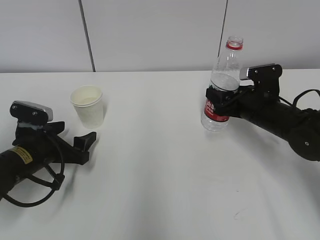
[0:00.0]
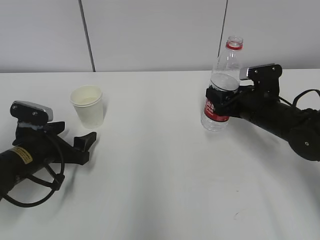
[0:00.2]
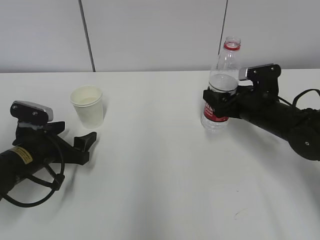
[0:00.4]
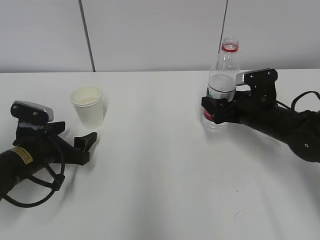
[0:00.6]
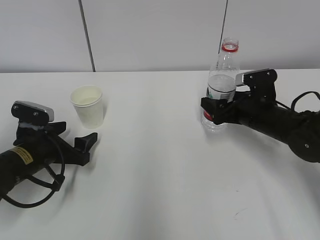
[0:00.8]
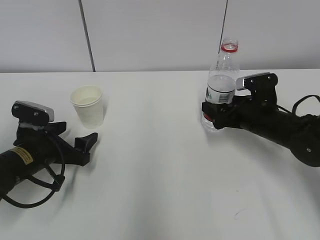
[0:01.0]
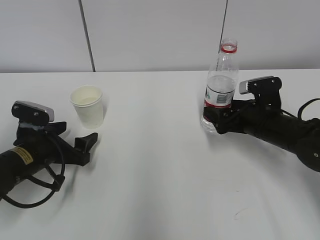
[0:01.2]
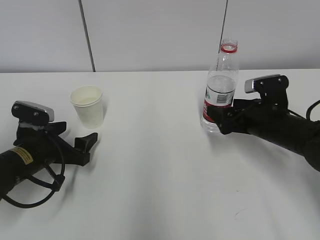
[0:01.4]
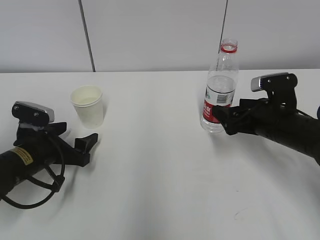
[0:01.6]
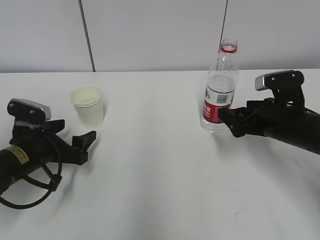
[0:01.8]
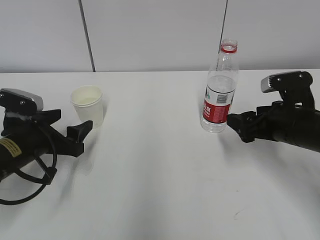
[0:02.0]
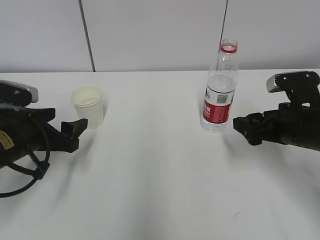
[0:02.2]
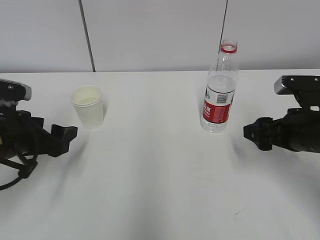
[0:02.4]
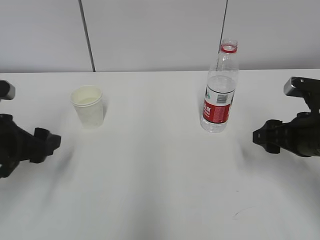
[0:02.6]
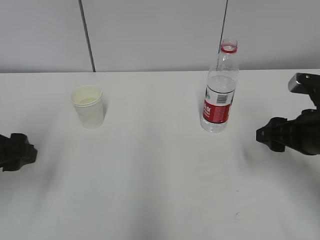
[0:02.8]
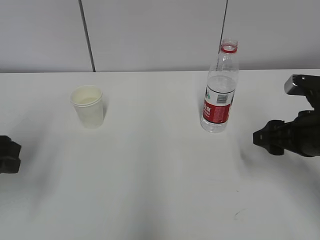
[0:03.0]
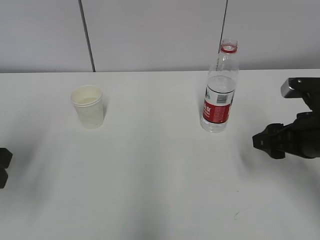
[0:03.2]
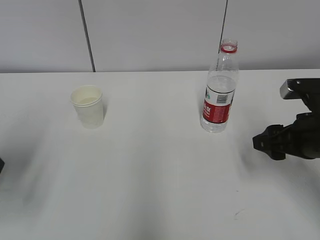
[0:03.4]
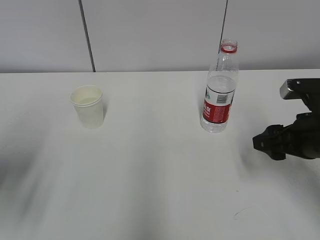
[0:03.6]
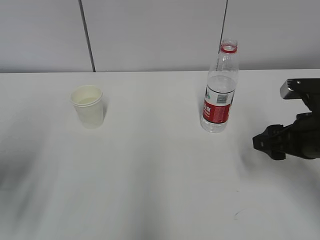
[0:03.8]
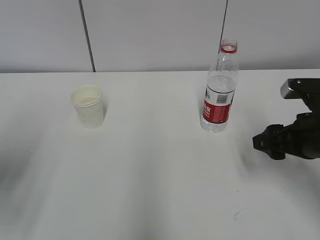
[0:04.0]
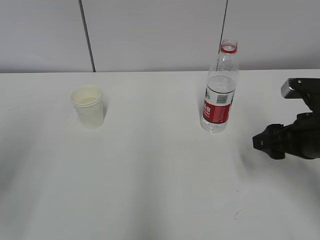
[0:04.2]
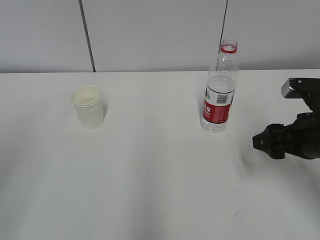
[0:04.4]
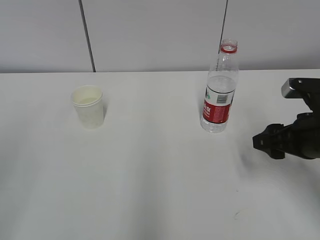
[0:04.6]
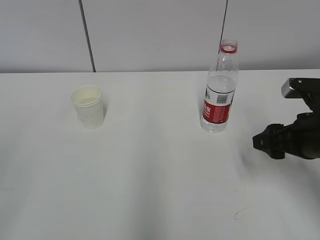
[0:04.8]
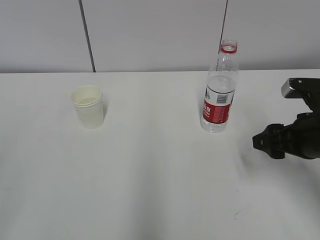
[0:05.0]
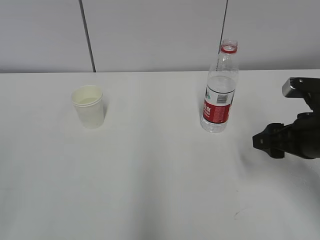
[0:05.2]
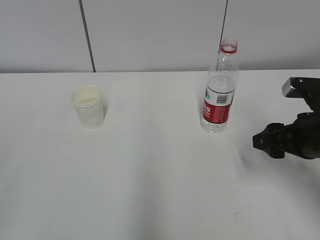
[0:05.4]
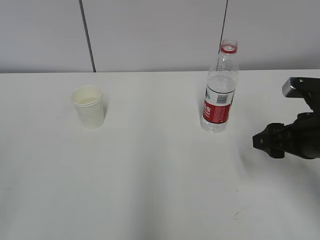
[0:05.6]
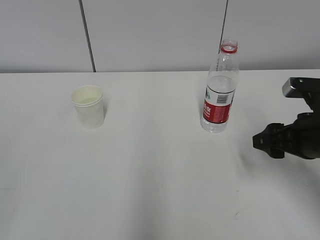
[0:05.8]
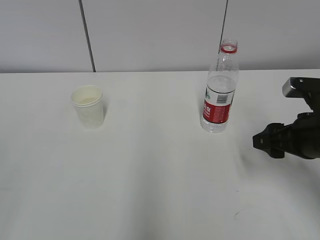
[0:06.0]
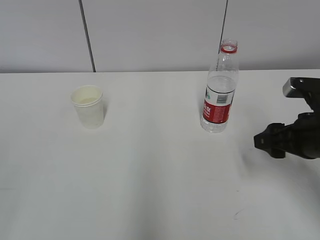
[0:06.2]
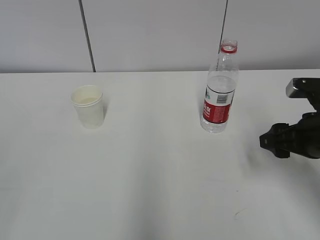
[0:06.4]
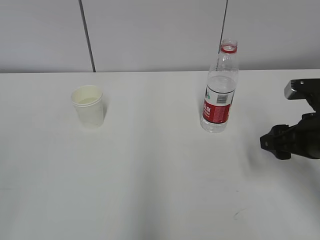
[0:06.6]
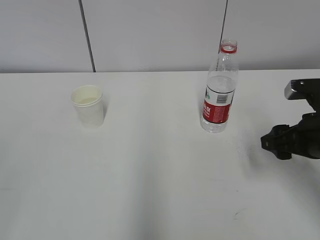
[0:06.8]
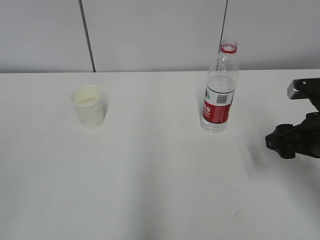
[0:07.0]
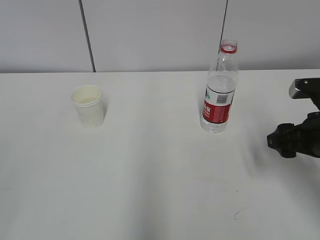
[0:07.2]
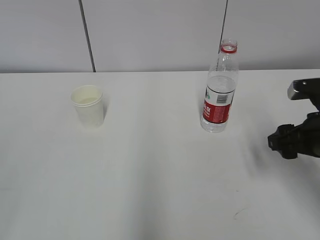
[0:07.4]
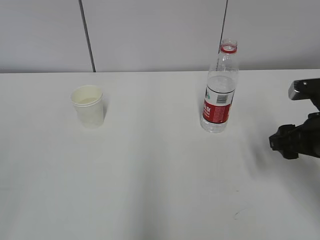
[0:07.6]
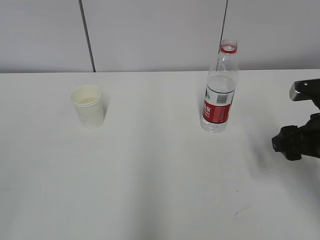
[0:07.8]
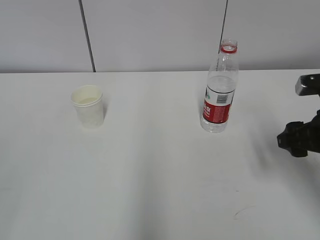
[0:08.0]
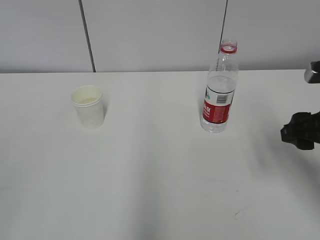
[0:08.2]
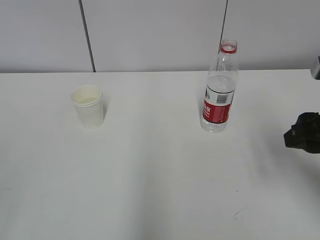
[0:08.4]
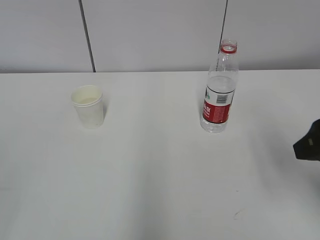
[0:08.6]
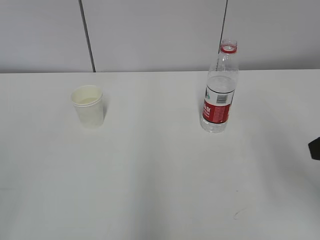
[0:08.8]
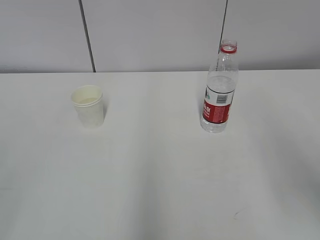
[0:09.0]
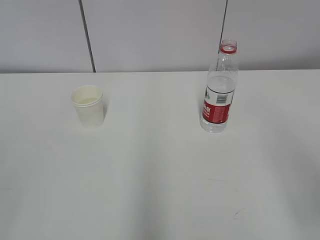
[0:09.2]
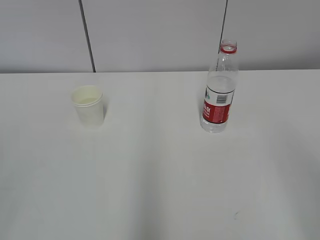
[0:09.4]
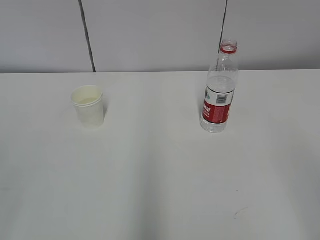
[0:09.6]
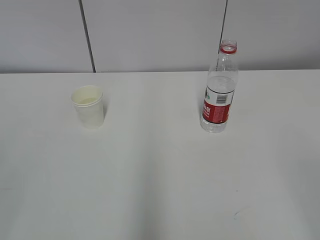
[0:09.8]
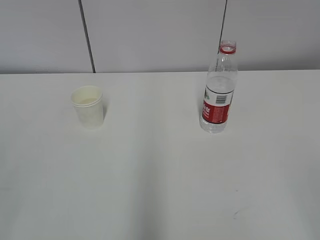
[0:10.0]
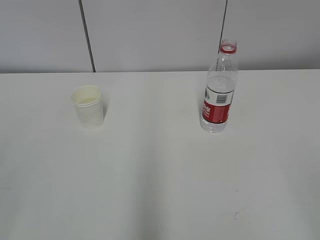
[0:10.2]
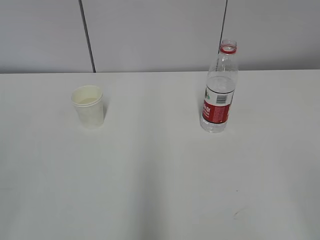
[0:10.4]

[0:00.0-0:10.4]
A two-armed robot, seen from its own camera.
0:00.0 to 0:01.4: The right gripper opens up.
0:01.4 to 0:03.0: The left gripper shifts some 15 cm upward and backward; the right gripper moves backward and upward, about 10 cm, and closes.
0:03.0 to 0:04.4: The left gripper is displaced backward and upward by about 15 cm.
0:06.0 to 0:07.4: There are only small adjustments of the grippers.
0:07.4 to 0:09.0: The right gripper goes some 20 cm upward and backward.

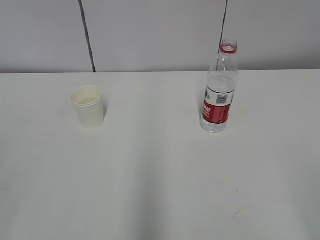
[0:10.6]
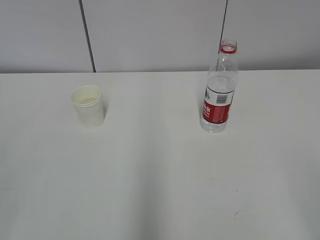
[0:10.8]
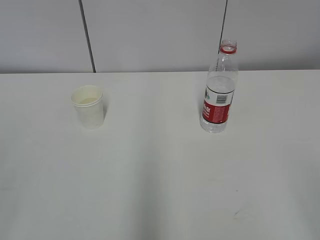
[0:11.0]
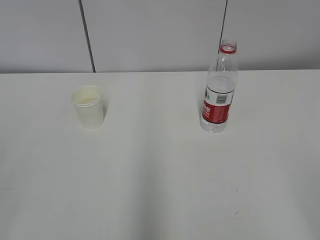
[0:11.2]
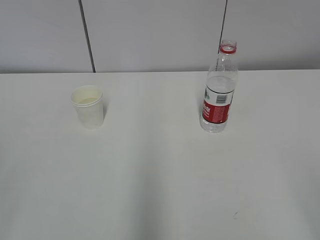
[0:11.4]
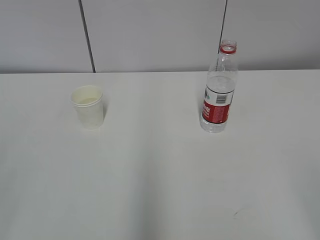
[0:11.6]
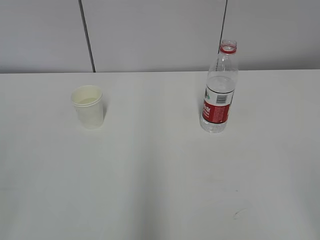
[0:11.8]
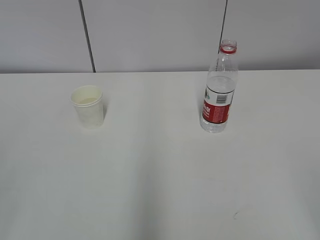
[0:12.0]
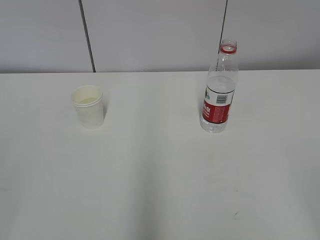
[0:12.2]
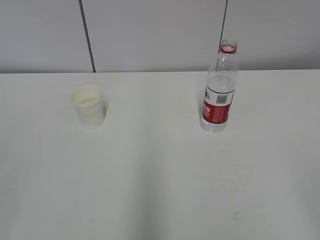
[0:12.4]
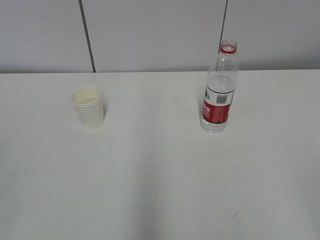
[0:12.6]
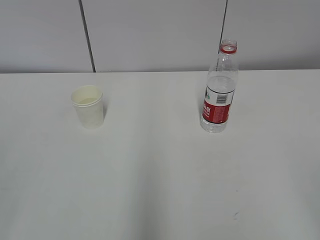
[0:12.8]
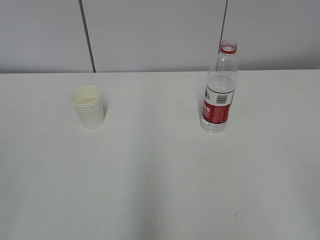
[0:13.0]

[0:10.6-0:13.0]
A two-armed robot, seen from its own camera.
0:11.8 to 0:13.0: The two grippers keep their place.

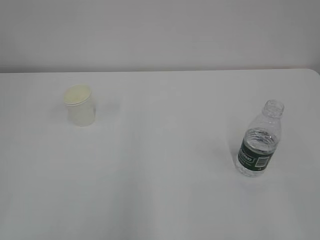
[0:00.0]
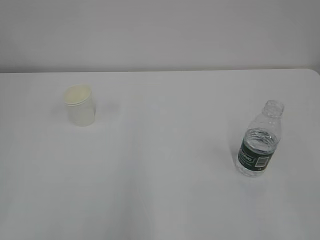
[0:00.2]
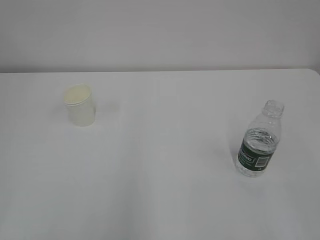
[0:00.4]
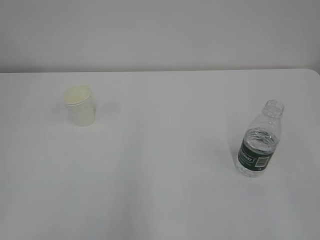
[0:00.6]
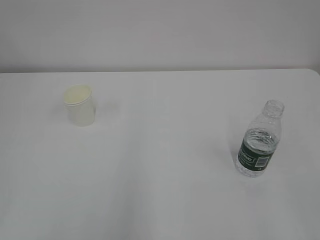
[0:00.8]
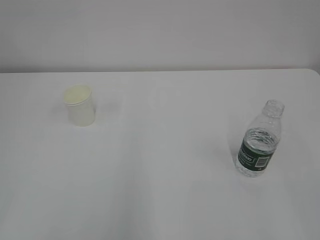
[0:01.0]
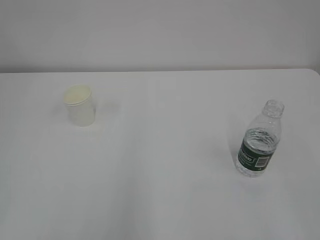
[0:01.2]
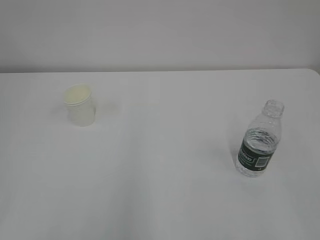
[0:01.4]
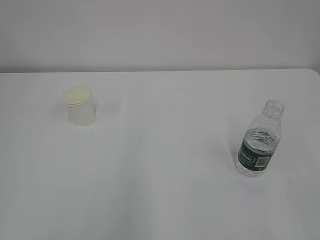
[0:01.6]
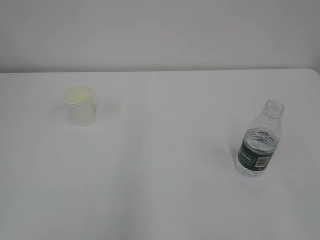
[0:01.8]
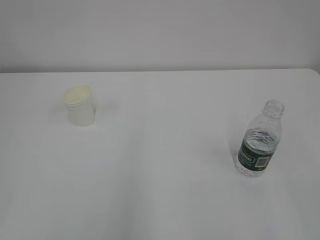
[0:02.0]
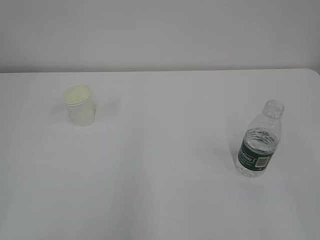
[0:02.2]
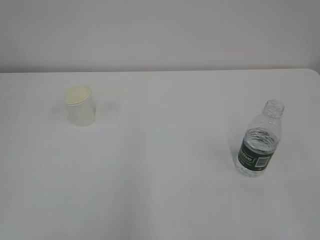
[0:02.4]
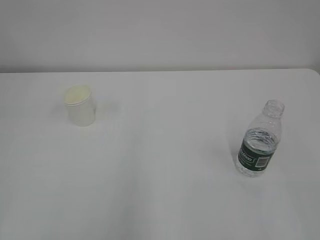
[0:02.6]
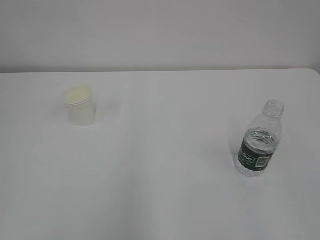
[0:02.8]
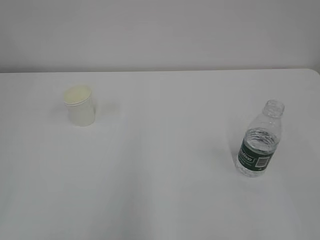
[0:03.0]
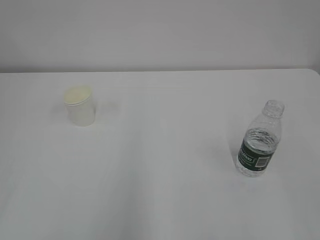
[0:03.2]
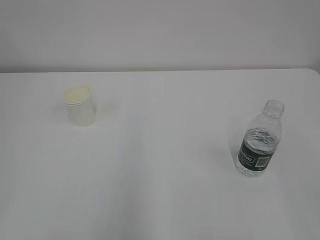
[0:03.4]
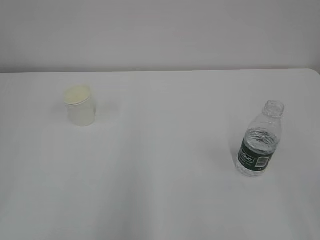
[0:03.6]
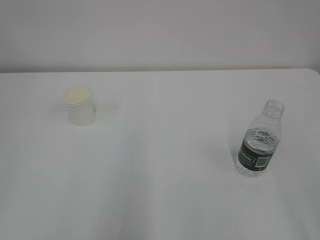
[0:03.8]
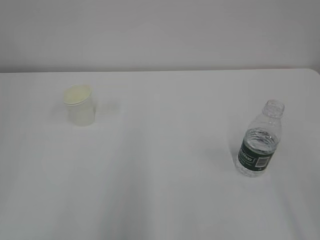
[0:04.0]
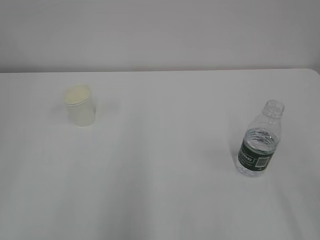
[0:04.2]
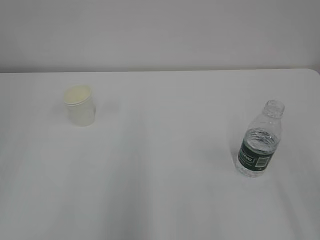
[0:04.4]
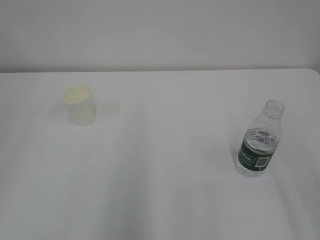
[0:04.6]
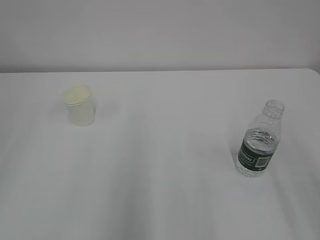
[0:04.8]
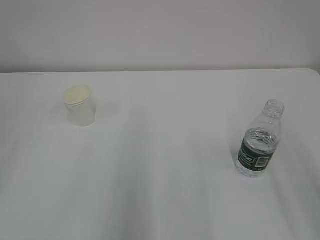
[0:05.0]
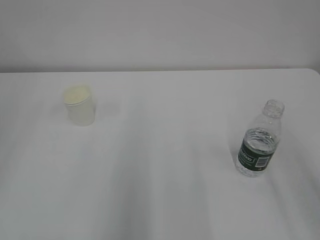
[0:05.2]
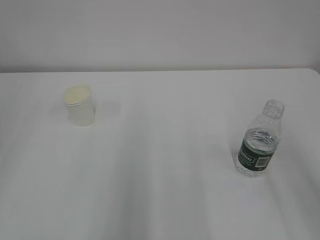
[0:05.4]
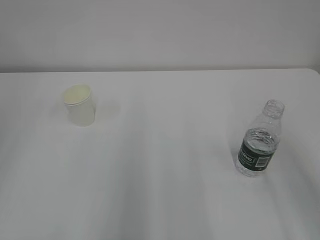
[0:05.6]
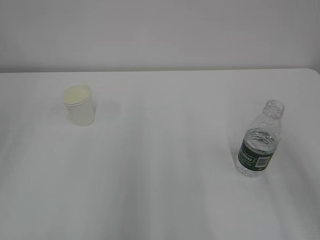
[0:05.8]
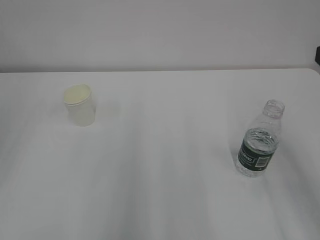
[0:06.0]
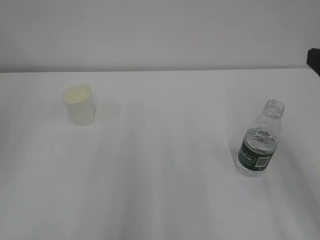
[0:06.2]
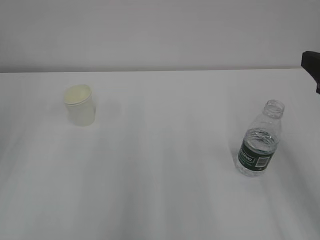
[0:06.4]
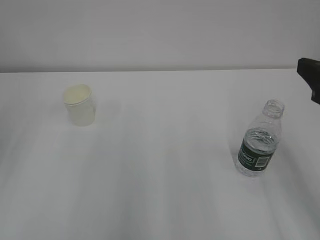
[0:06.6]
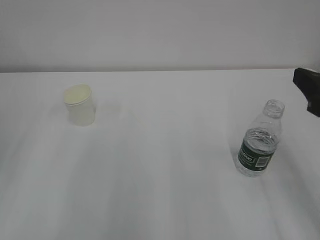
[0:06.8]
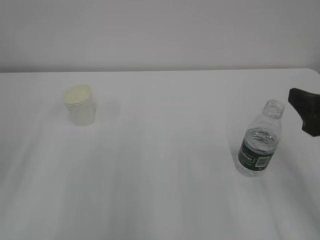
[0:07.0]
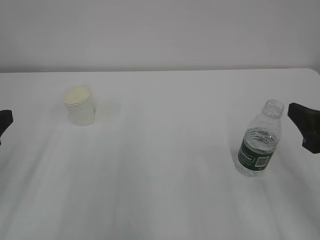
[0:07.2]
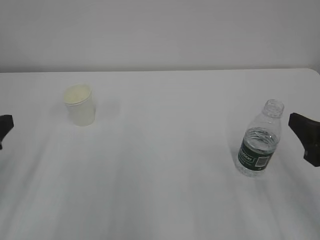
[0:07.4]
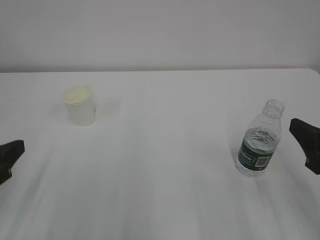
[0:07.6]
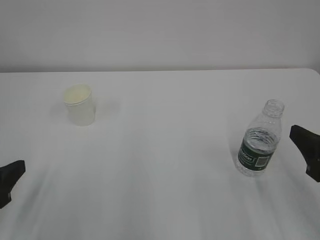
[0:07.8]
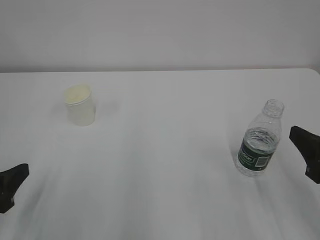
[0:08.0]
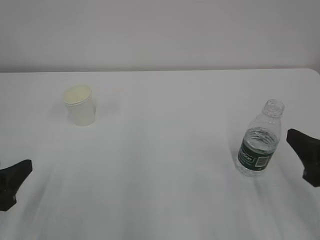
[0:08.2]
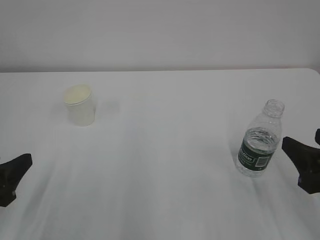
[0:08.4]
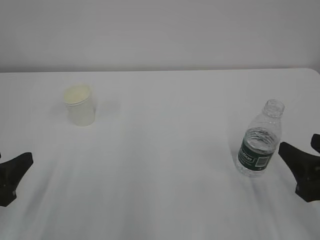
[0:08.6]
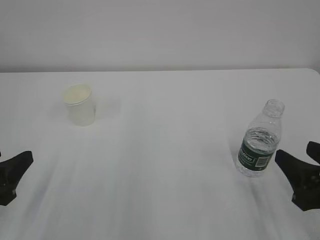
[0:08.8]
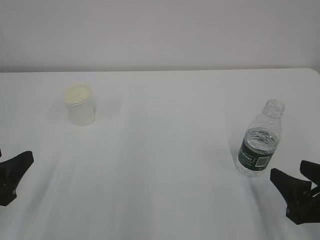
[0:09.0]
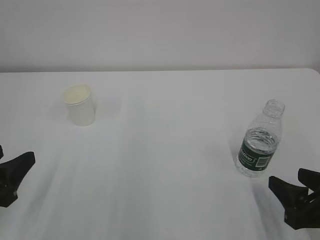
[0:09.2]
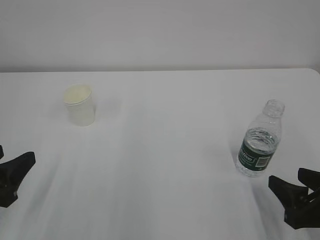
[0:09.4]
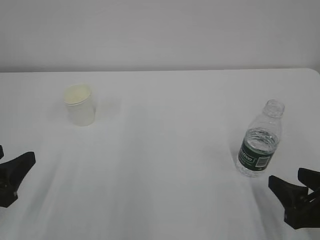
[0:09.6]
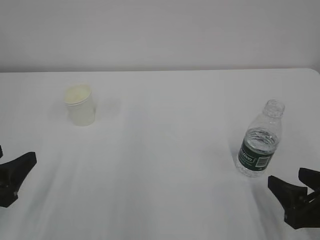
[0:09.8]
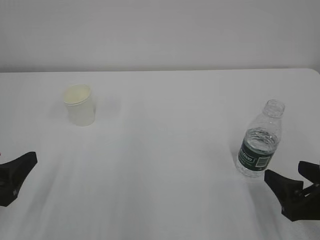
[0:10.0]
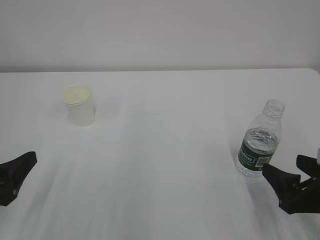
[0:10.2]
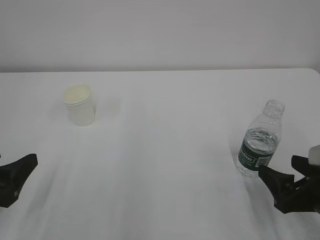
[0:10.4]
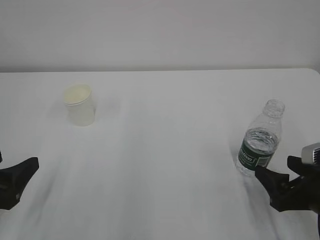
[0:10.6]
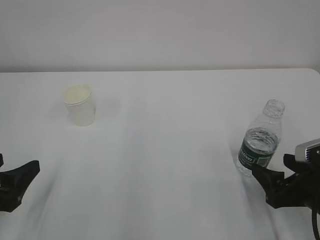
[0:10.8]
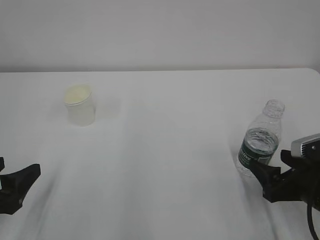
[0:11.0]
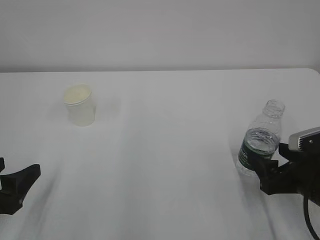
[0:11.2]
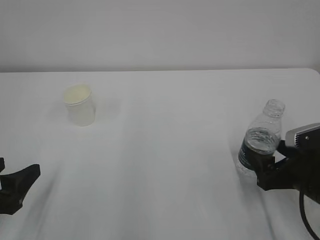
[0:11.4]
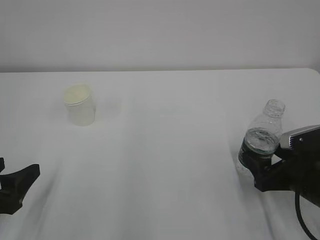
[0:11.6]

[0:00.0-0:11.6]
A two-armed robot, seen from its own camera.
0:05.8 to 0:07.2: The right gripper moves downward, about 10 cm.
0:07.2 to 0:08.8: Both grippers move downward, roughly 5 cm.
0:08.8 to 0:10.2: The right gripper opens.
0:10.2 to 0:11.6: The right gripper is displaced forward by roughly 5 cm.
